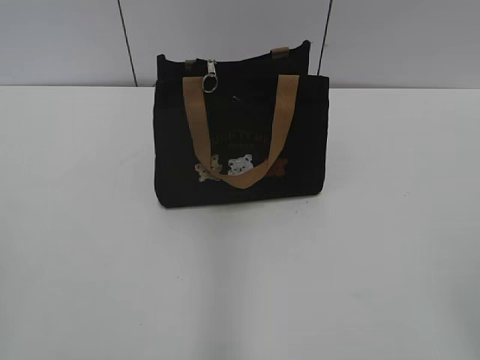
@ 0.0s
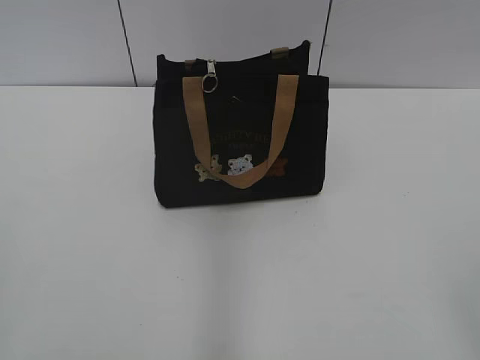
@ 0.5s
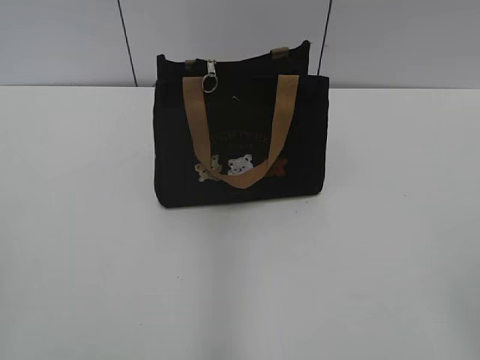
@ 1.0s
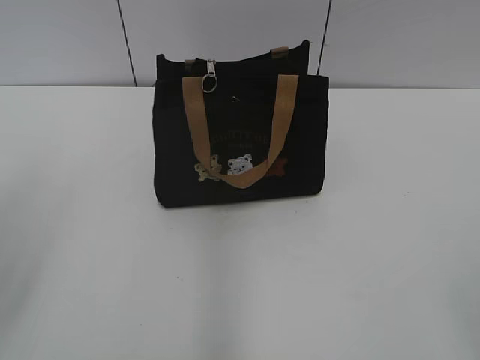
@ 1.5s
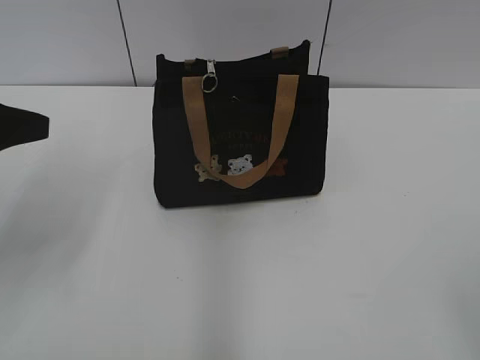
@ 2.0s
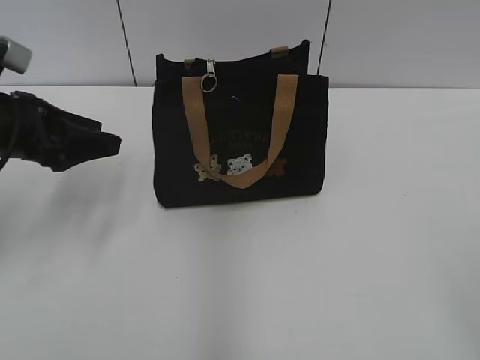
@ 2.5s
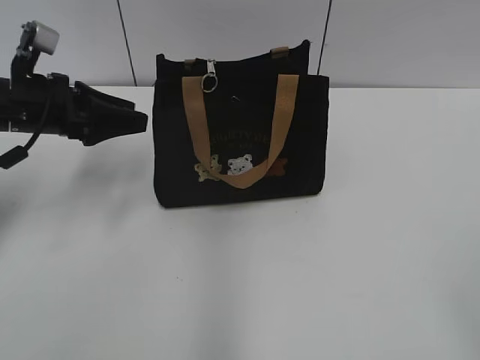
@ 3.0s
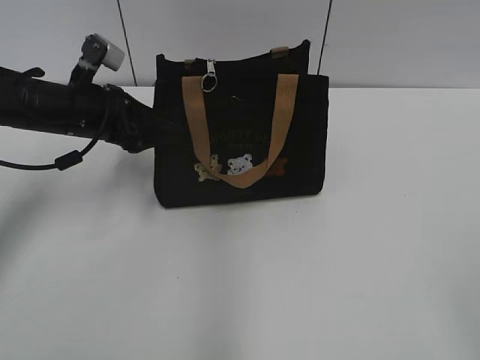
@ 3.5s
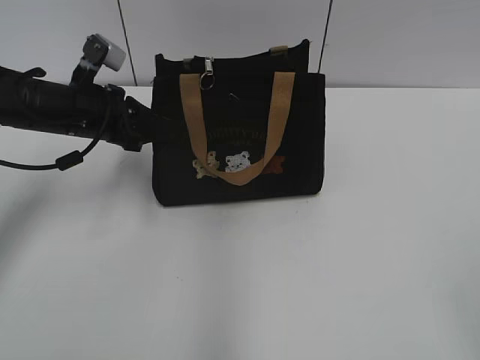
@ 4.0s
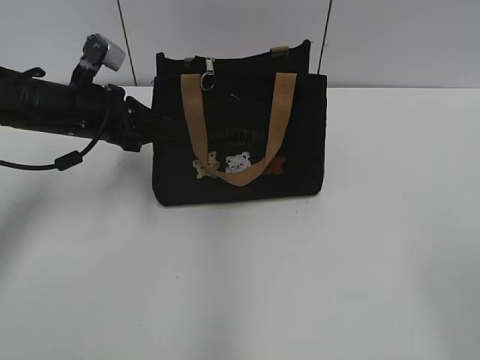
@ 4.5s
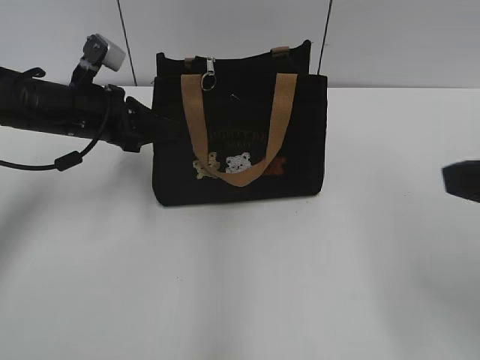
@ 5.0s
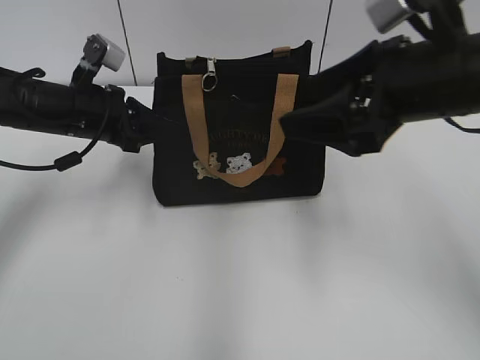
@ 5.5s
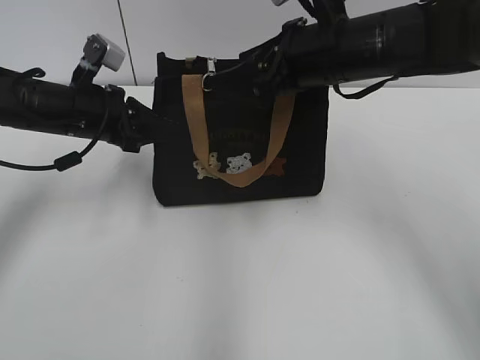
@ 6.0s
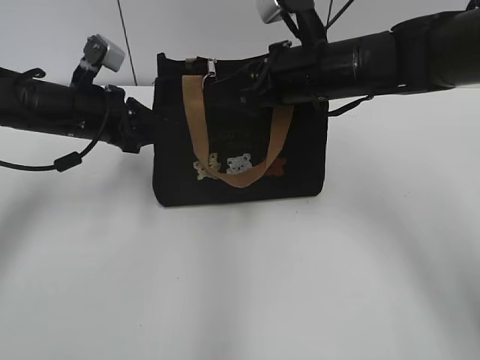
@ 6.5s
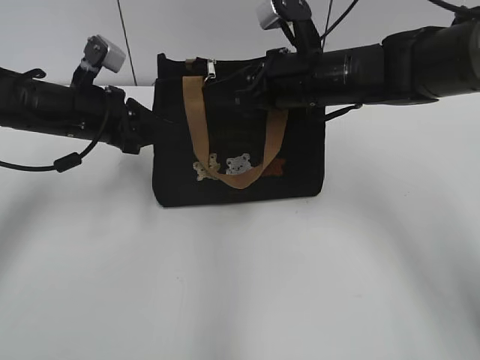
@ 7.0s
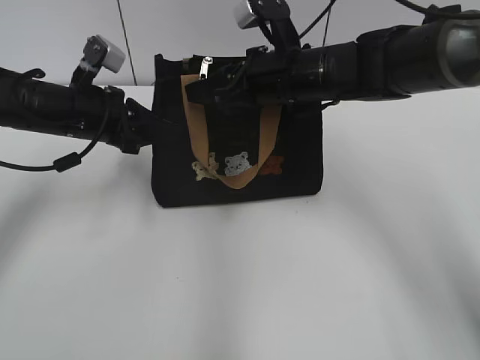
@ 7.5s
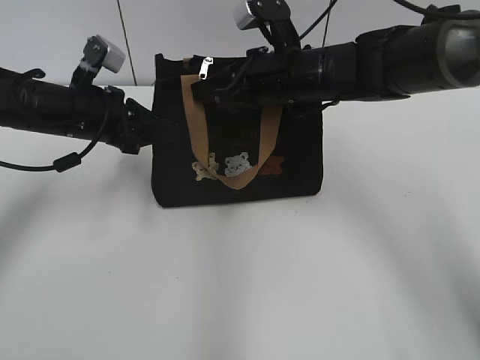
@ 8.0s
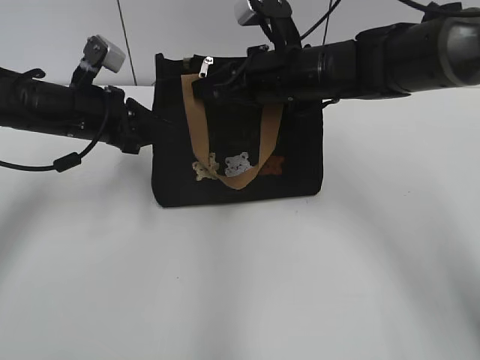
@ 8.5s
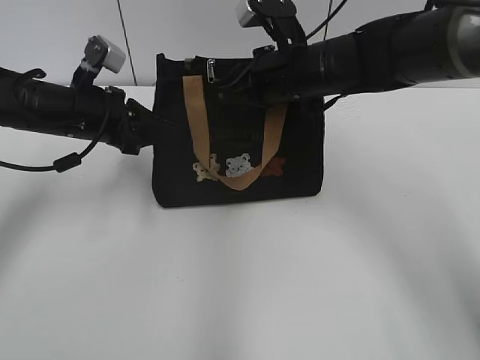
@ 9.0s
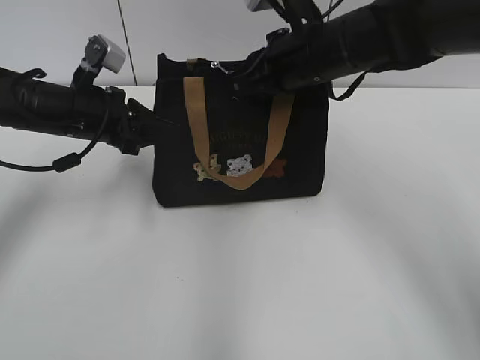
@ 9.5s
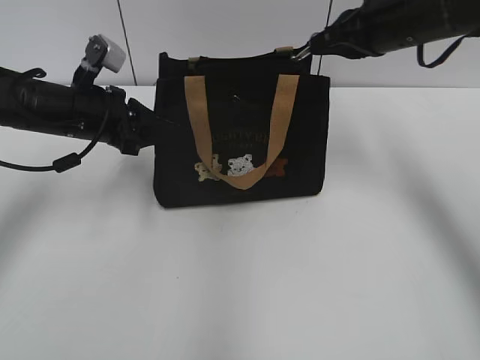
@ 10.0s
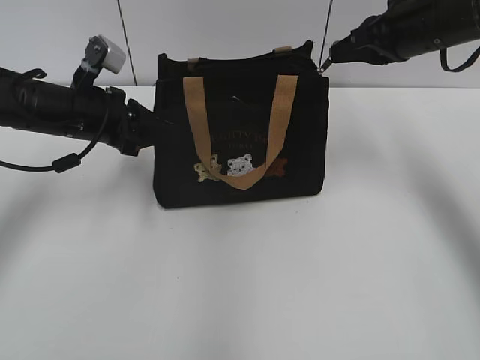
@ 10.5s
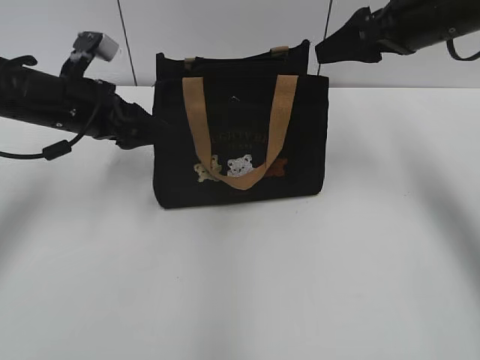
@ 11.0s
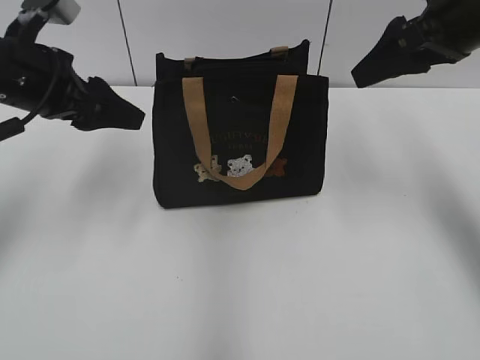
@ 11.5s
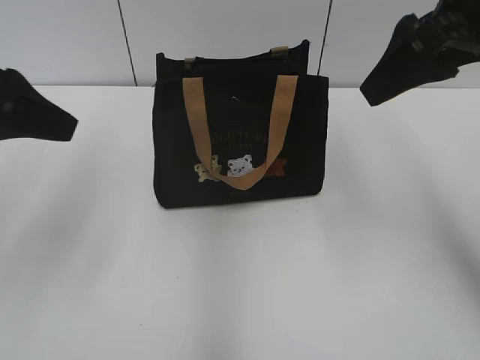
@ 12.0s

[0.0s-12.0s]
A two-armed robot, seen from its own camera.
Step, 0.0s to 10.5s: Pull open the zipper with your right hand.
2.0s to 4.0s: The left gripper goes roughly 20 cm forward, downward and to the right, and closes.
4.0s to 6.0s: The right gripper travels forward and to the left by some 40 cm.
6.0s to 8.0s: The right gripper is displaced downward by roughly 5 cm, and closes.
8.0s to 10.0s: The right gripper travels to the right and upward by some 10 cm.
10.0s to 12.0s: The left gripper goes roughly 20 cm upward and backward, and opens up; the right gripper is displaced backward and upward by about 15 cm, and opens its fingers.

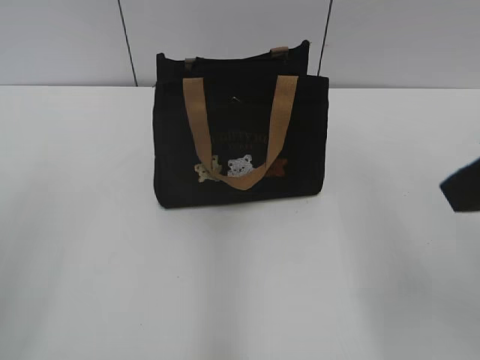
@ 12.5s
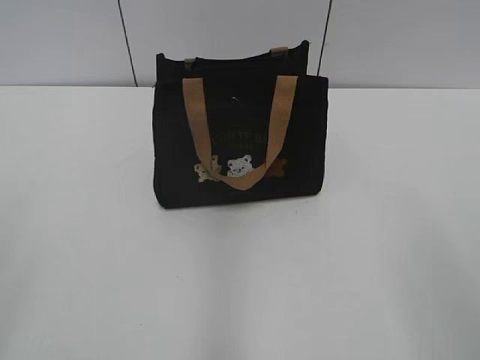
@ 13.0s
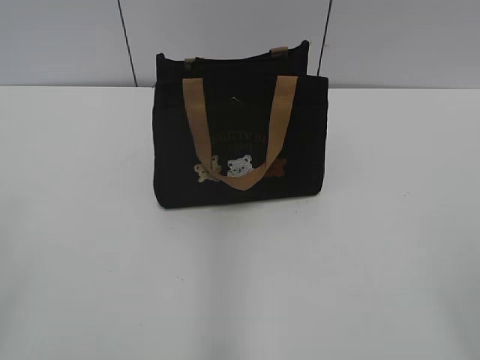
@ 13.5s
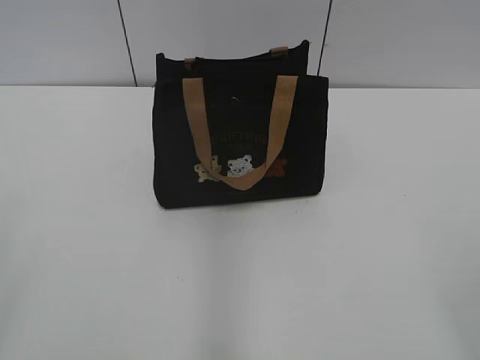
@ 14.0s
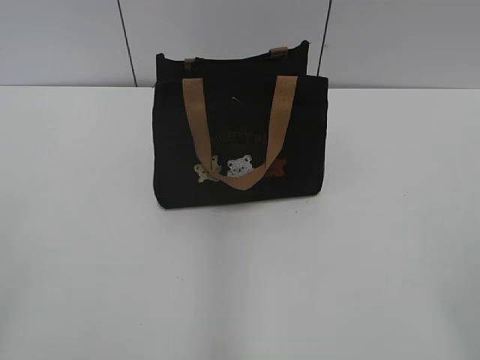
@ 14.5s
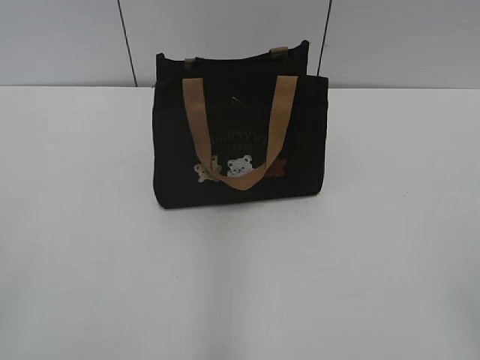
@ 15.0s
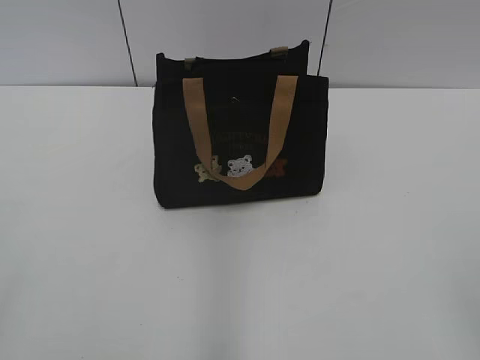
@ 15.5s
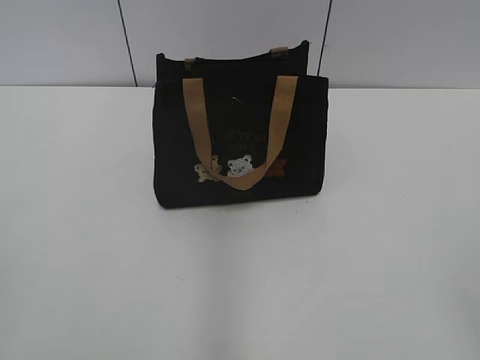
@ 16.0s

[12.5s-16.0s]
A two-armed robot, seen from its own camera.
12.5s to 14.5s: The right gripper travels backward and to the right by approximately 20 cm.

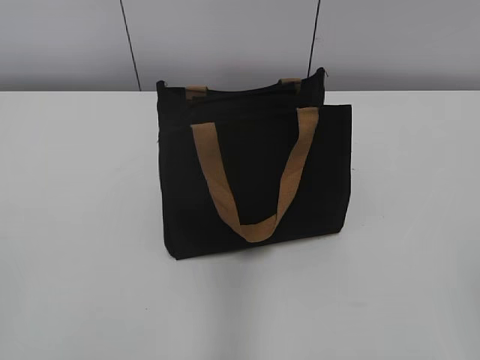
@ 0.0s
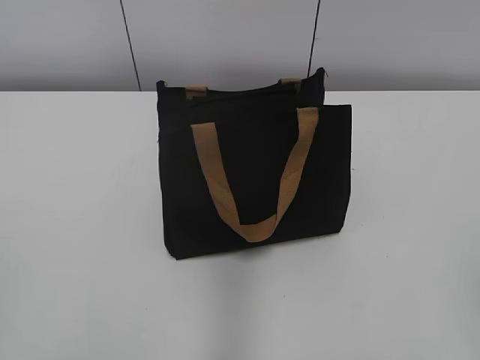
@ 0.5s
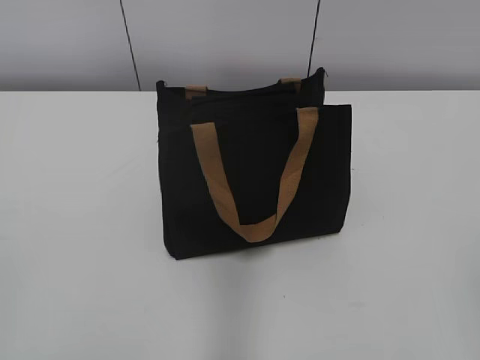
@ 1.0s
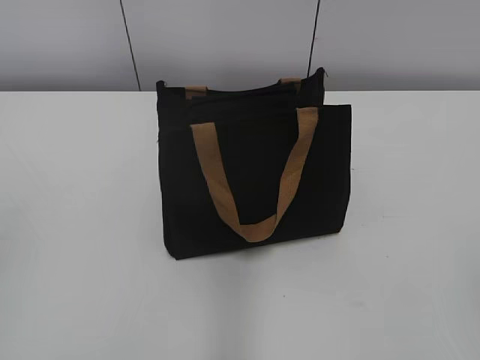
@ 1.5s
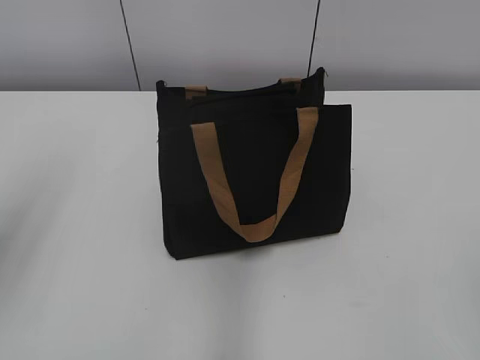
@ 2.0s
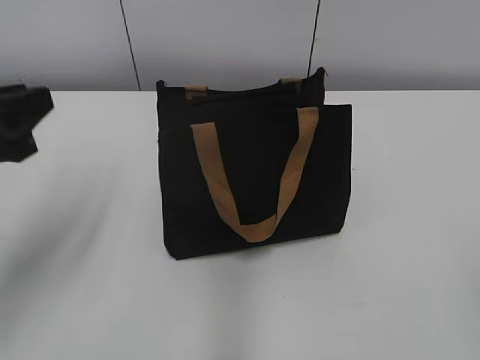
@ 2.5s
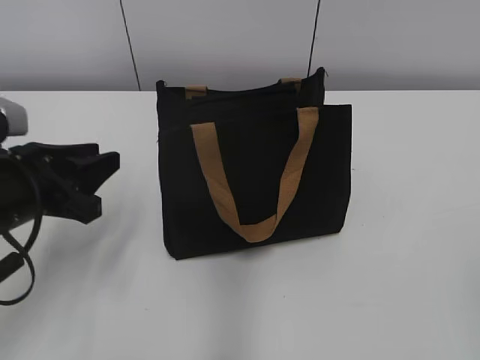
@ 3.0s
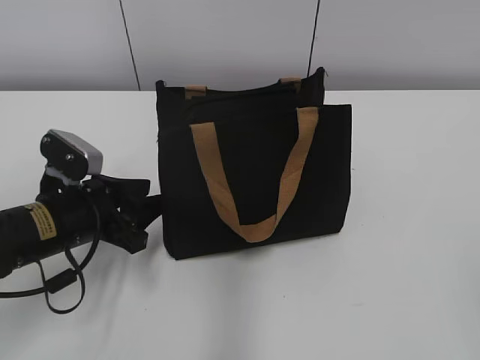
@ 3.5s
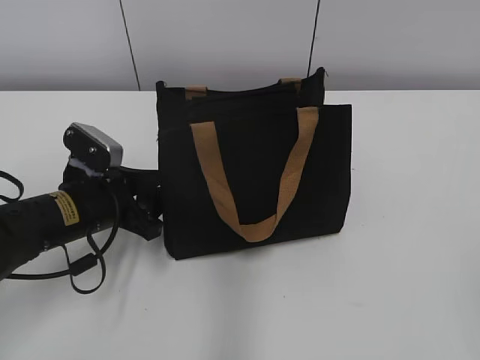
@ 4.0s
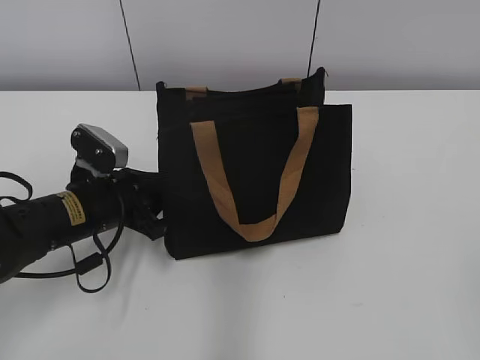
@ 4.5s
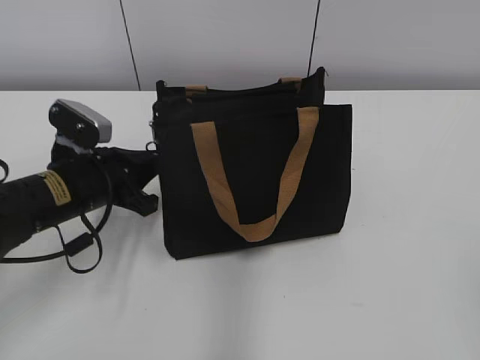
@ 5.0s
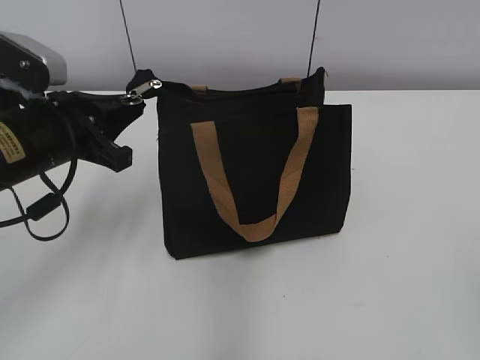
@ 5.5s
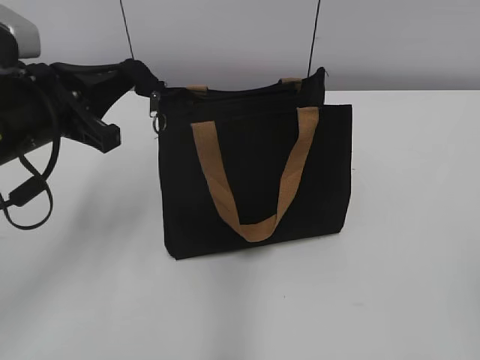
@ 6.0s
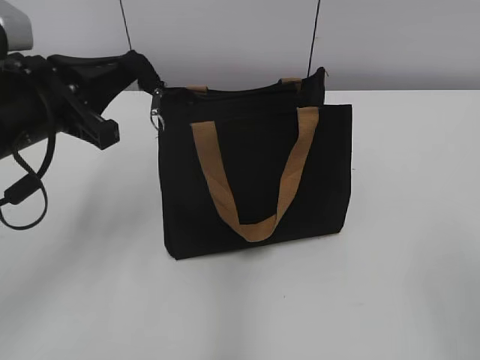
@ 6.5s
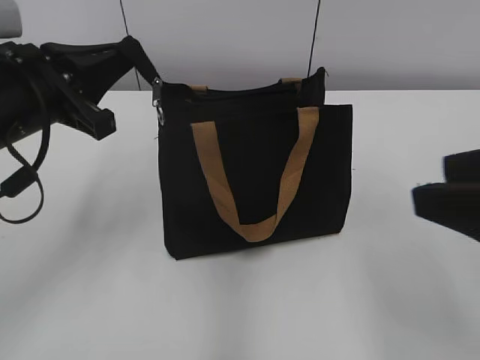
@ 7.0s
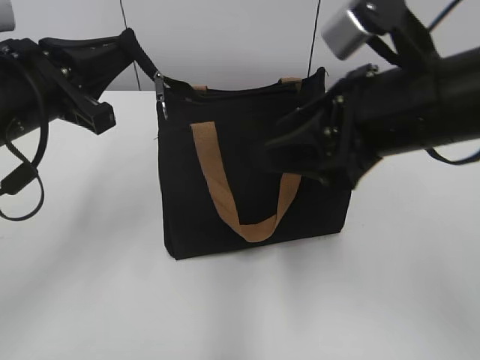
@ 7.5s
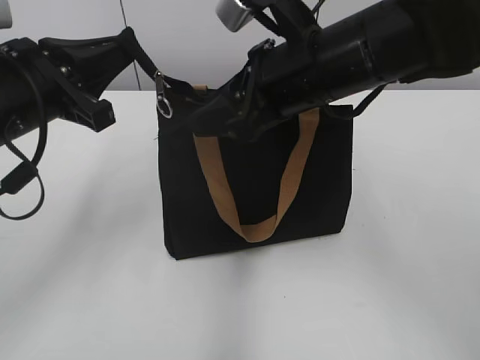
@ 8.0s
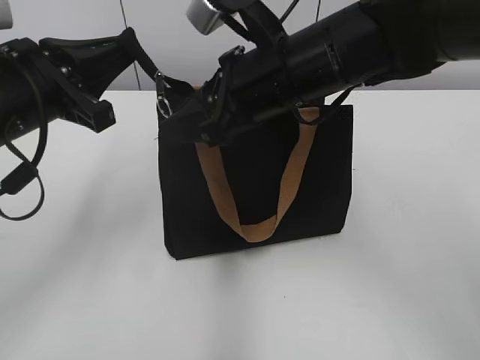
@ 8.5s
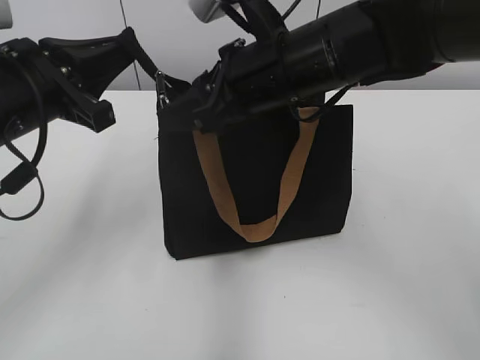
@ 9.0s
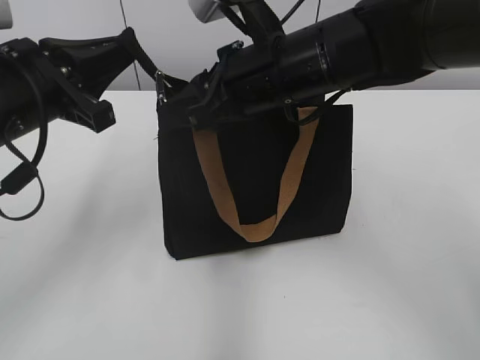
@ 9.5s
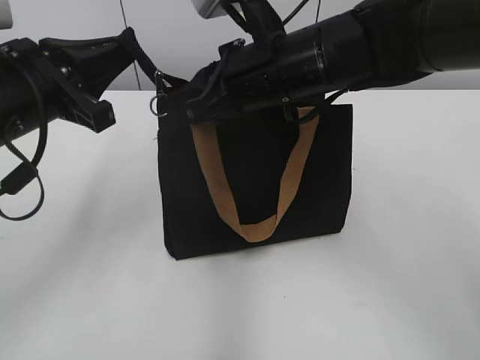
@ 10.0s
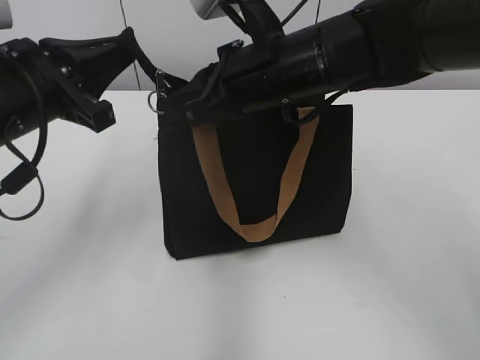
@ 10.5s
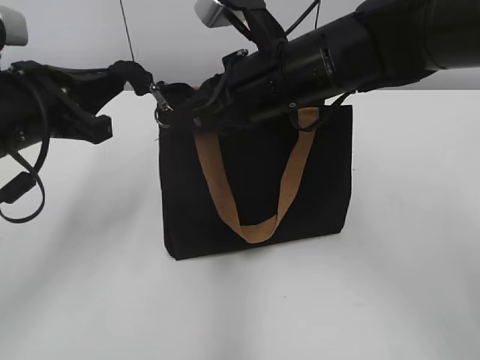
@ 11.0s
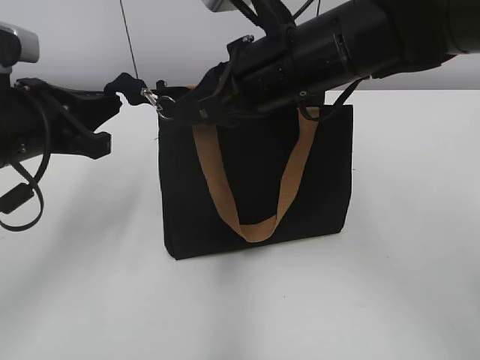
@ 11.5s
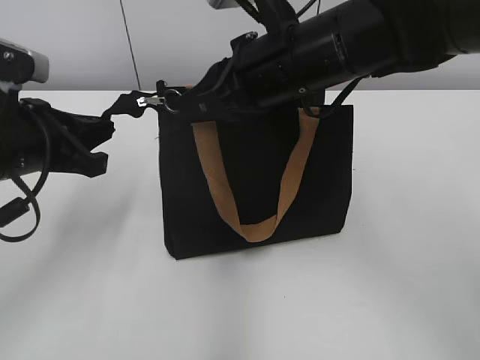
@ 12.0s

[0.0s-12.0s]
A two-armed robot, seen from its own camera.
2.0s to 4.0s: The left gripper heads downward, forward and to the right, covering roughly 30 cm.
4.0s to 6.0s: The left gripper travels upward by approximately 15 cm, and closes its fingers.
6.0s to 8.0s: The right gripper moves forward and to the left, roughly 35 cm.
8.0s to 10.0s: The right gripper closes up.
